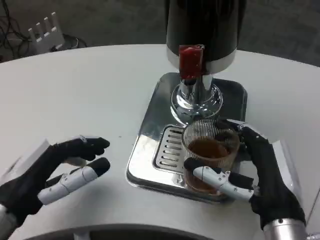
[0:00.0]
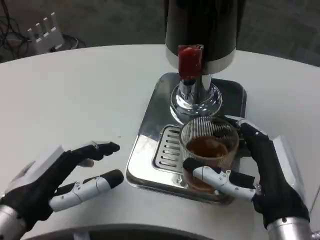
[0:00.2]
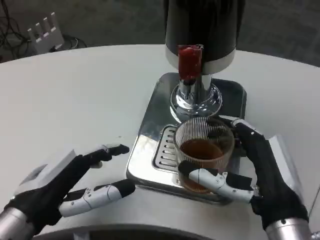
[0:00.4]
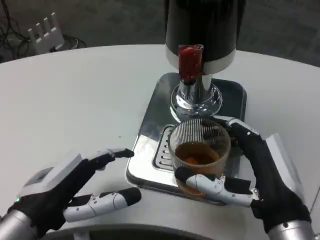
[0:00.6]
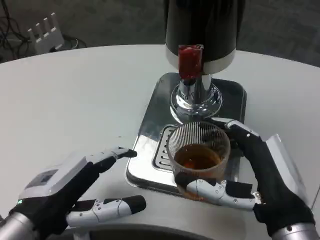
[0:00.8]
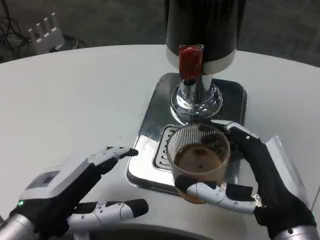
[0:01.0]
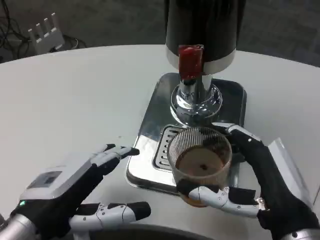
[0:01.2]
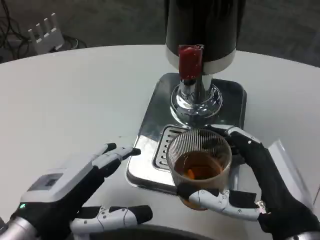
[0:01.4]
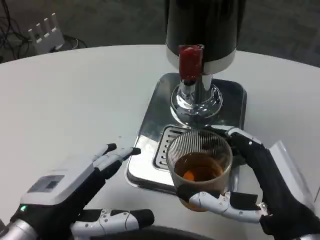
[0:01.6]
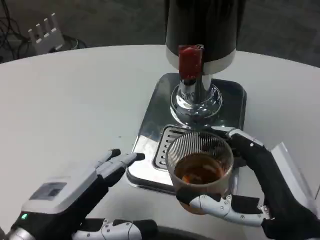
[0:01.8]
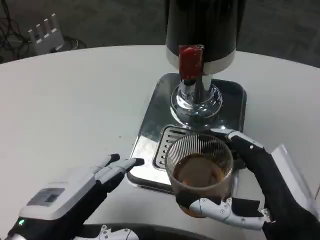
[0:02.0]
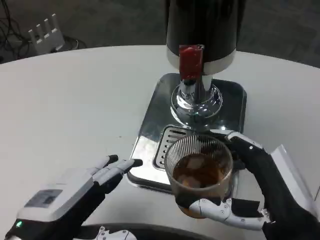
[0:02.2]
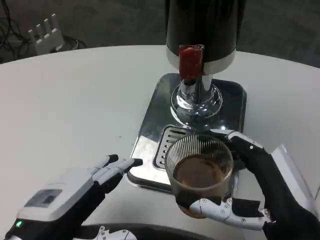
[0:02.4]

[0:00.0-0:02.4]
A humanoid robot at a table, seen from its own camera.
Task of the whole recording: Grasp the cup under the faucet to collect the drink, then remove the cup.
0:01.2 to 0:02.4: The hands make only small movements.

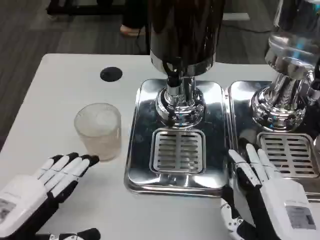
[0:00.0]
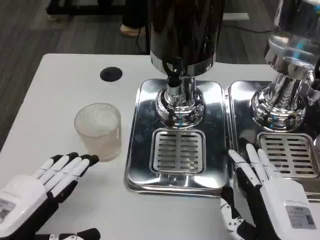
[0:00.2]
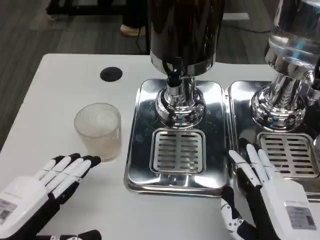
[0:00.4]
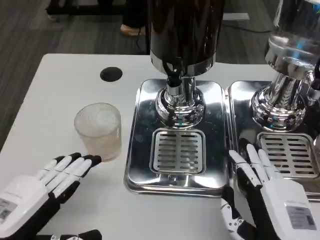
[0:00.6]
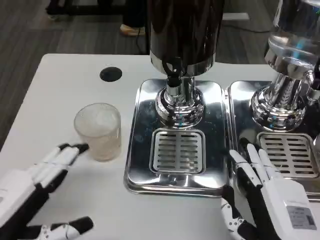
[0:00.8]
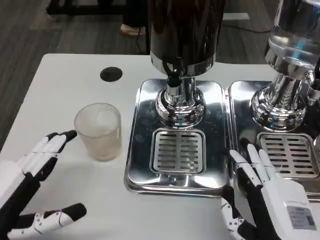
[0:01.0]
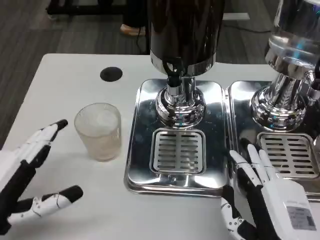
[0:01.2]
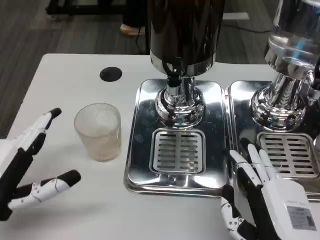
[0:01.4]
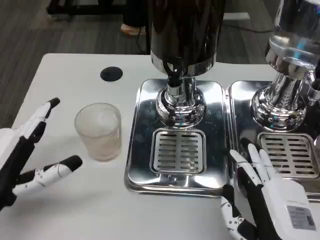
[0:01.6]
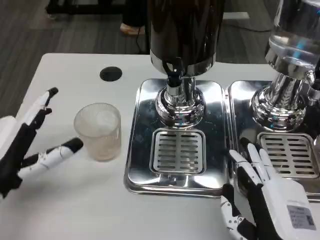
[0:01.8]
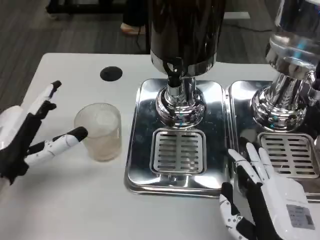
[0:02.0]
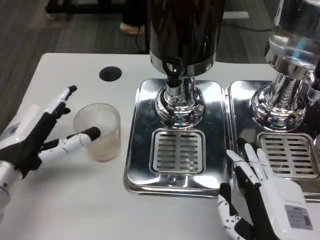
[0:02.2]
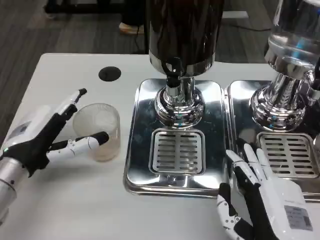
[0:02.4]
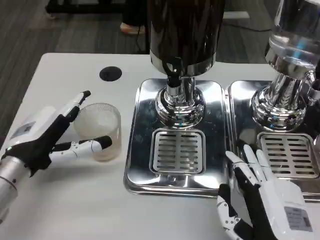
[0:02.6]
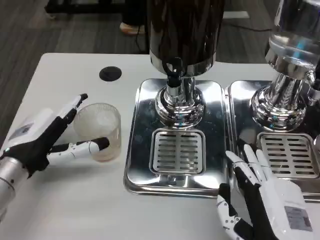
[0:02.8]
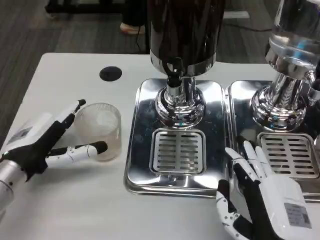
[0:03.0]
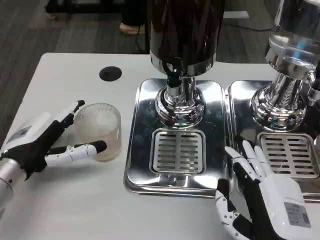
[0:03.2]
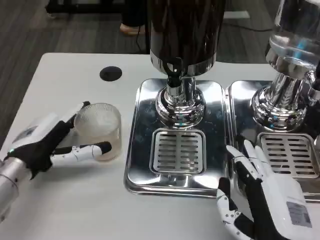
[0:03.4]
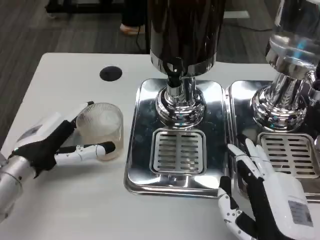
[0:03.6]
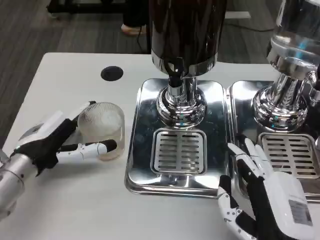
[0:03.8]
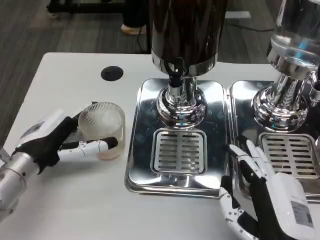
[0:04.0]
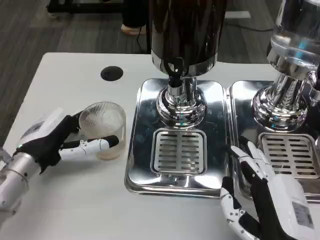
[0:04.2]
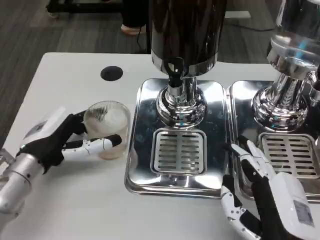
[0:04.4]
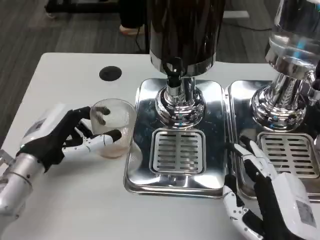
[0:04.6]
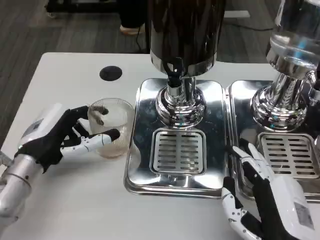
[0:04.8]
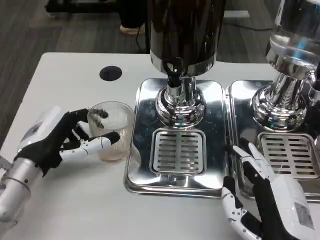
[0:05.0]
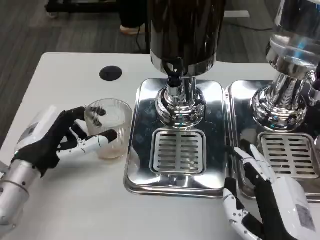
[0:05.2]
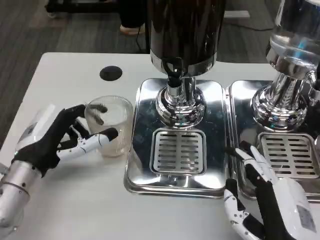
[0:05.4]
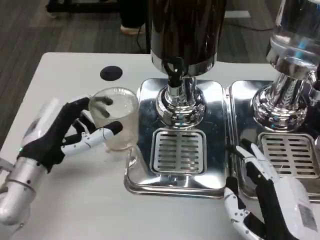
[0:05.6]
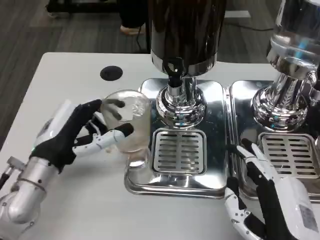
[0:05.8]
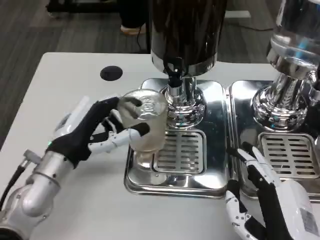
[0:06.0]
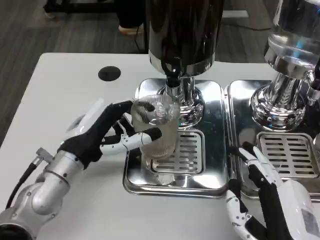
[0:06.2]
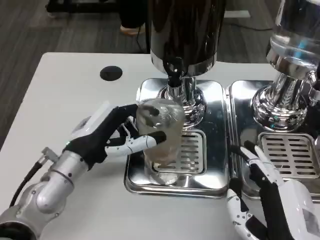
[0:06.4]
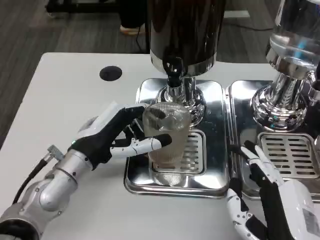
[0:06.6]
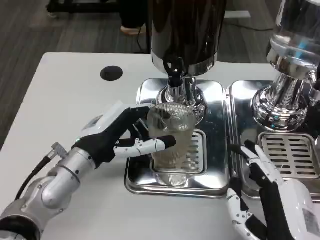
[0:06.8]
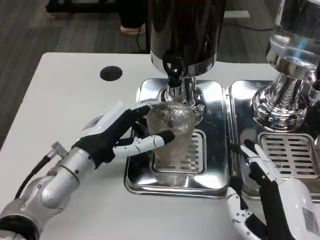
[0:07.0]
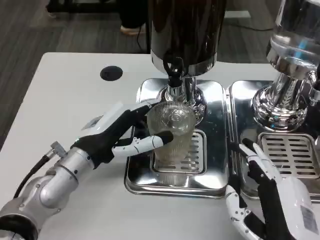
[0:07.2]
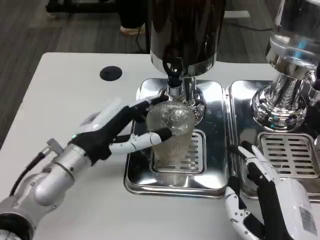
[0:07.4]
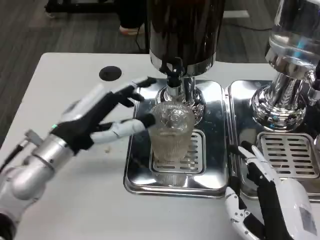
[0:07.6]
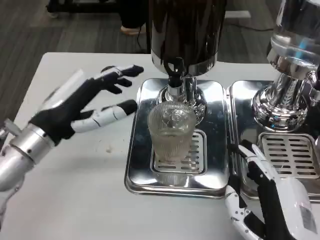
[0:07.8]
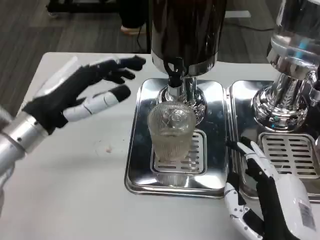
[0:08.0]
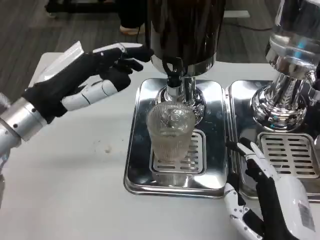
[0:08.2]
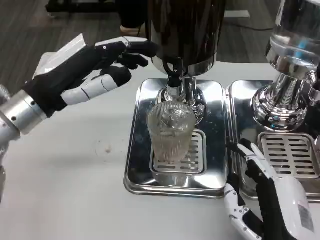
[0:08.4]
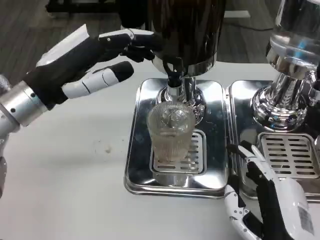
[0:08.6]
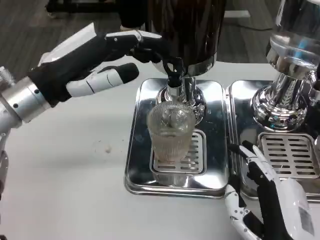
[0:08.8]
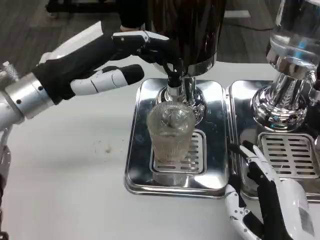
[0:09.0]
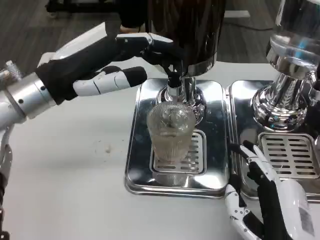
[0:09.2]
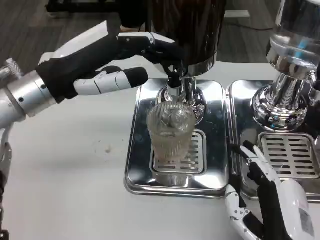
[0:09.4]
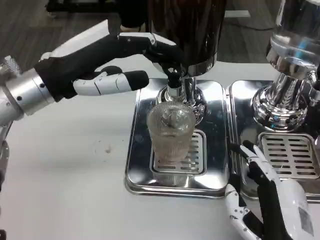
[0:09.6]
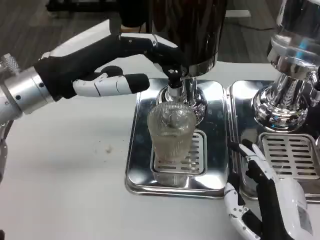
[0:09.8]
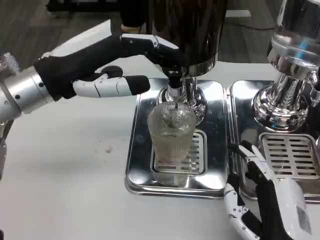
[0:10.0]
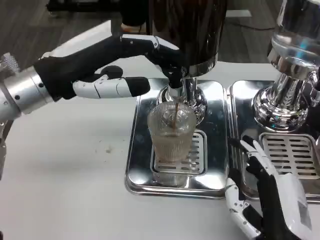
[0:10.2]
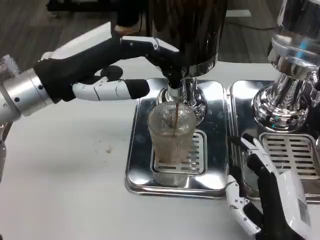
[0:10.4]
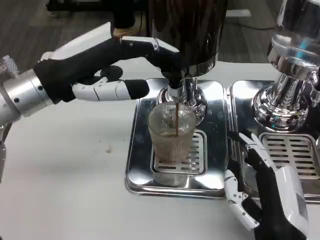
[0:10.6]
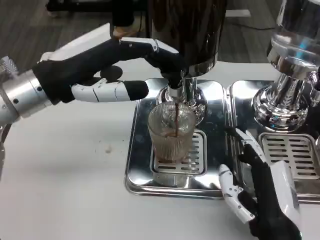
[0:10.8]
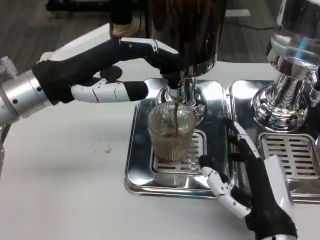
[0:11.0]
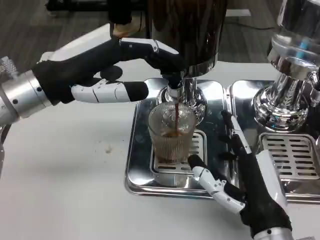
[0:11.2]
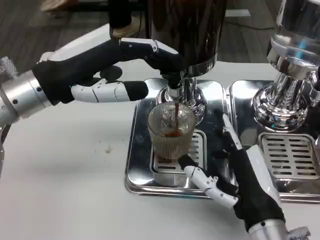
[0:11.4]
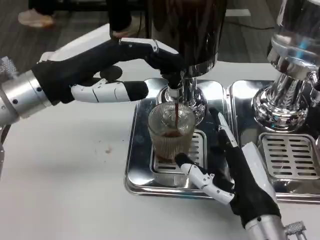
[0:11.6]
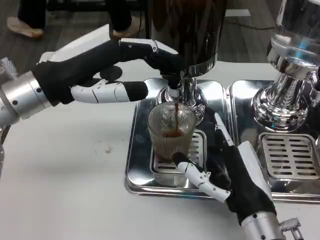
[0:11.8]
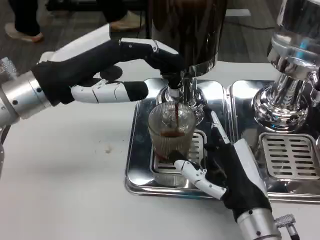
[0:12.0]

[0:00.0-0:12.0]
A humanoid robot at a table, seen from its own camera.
Task of the whole recording: Grasp the cup under the faucet to collect the drink, then remove the cup.
0:00.0 to 0:01.6: The left hand moves forward, some 5 cm.
0:01.6 to 0:03.0: The left hand shifts roughly 5 cm forward.
0:07.6 to 0:09.0: The left hand moves upward, roughly 10 cm.
0:10.4 to 0:12.0: The right hand is displaced forward by about 5 cm.

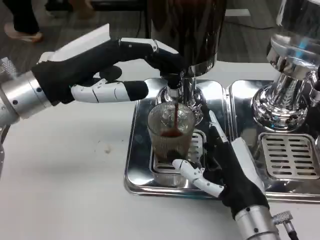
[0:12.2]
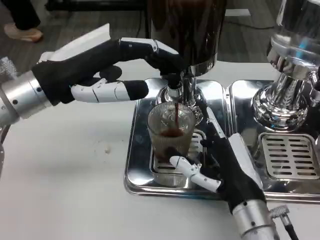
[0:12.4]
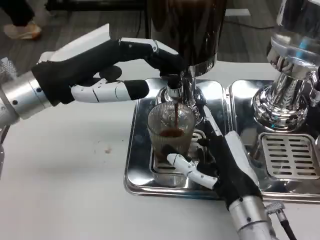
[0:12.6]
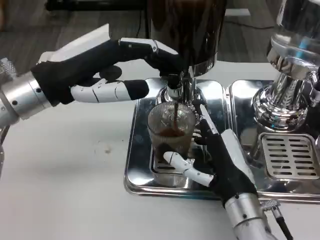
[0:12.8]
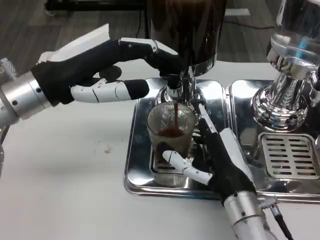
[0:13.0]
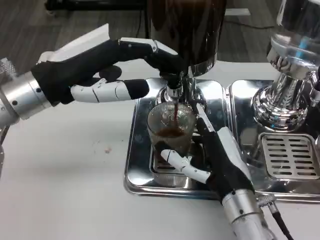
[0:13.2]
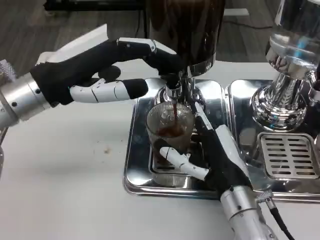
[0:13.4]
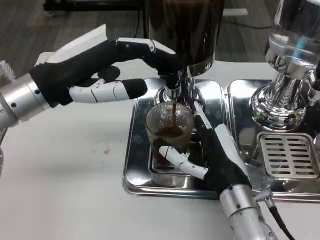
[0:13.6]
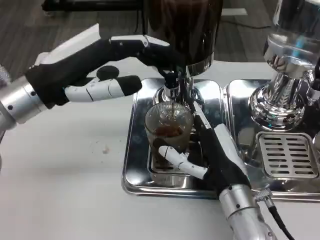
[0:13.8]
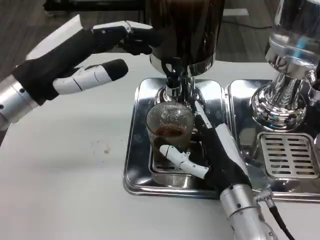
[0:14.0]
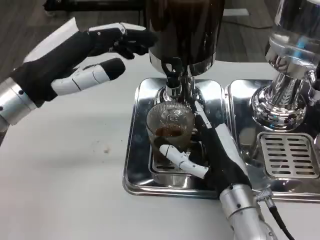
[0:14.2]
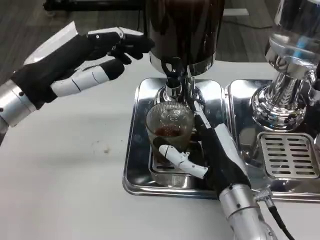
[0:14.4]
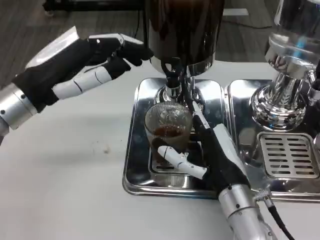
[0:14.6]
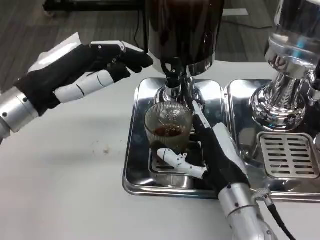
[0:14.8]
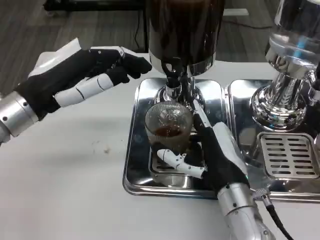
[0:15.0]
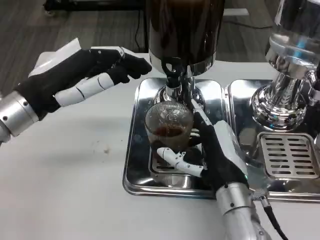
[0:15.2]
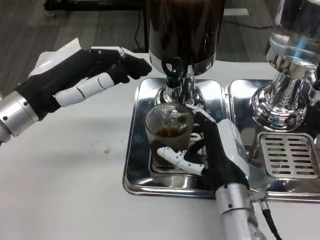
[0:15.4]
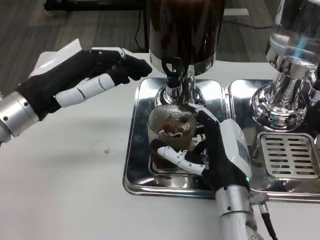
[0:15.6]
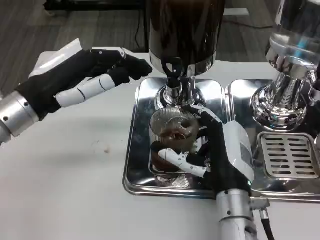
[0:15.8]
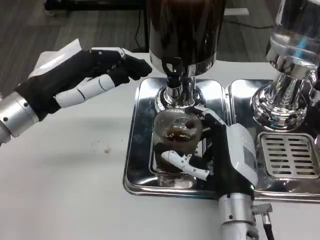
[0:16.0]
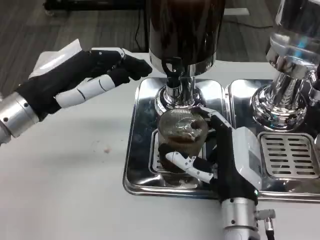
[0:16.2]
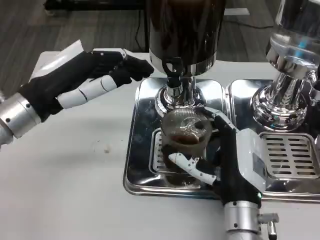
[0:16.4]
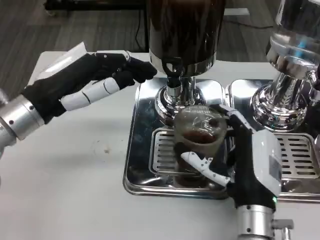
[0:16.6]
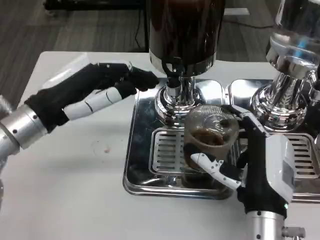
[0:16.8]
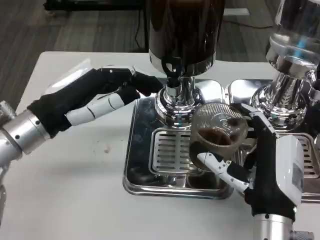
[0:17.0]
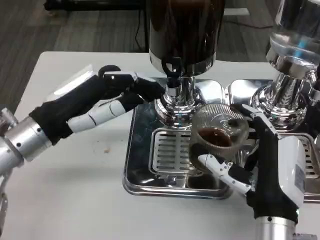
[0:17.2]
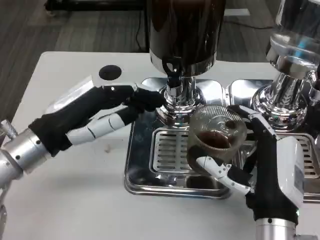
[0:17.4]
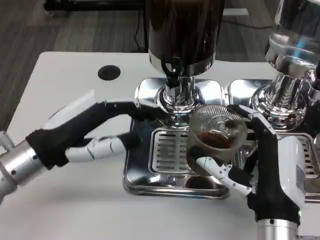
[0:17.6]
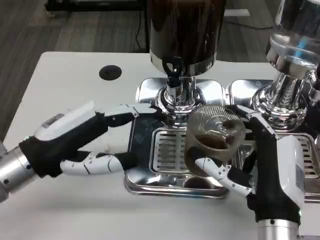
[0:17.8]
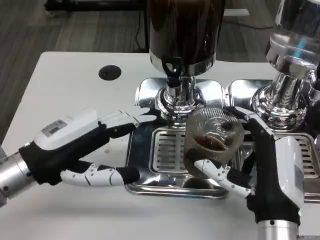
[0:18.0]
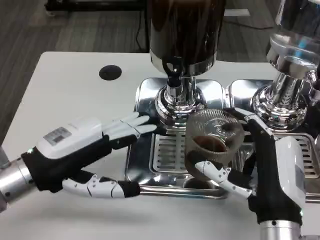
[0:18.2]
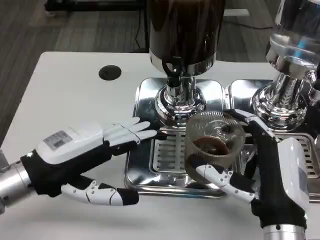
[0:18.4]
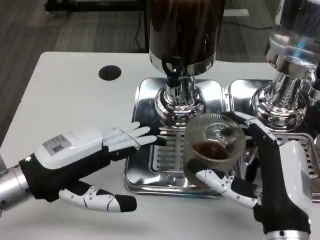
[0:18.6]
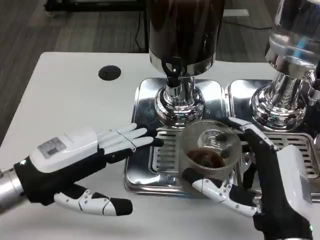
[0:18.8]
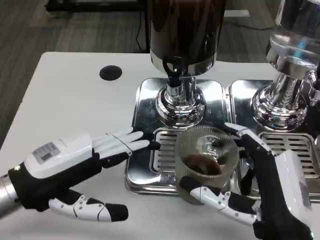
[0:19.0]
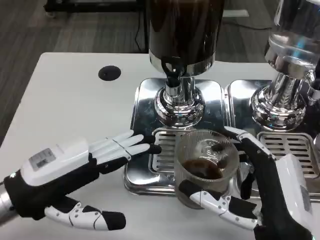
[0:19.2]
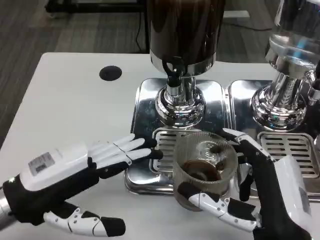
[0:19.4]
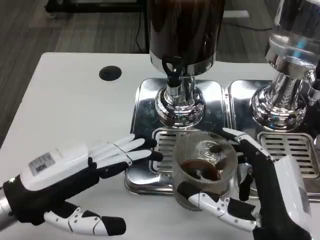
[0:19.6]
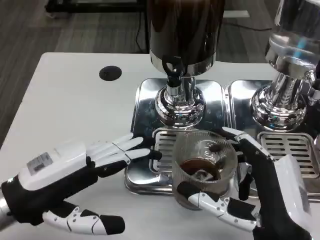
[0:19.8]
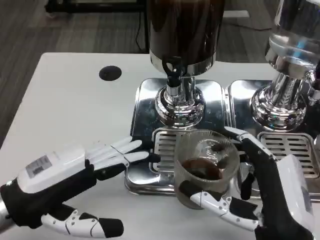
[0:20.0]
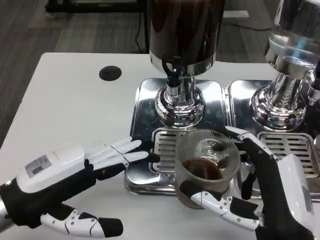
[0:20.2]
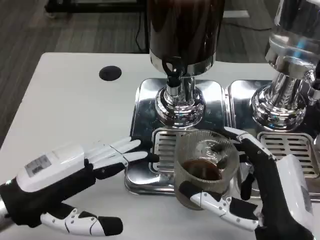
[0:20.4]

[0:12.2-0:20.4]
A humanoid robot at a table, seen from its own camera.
Task of the whole recording: Grasp the cup under the faucet to collect the drink, then remove the cup.
0:15.4 to 0:17.2: The right hand shifts about 5 cm backward.
0:17.2 to 0:18.8: The left hand goes about 5 cm backward.
